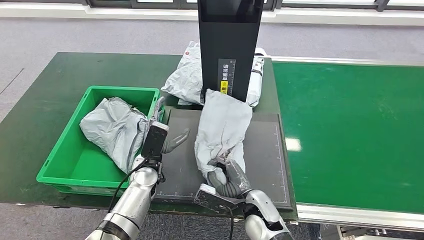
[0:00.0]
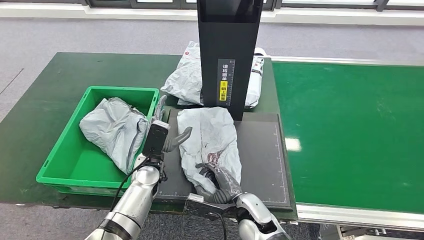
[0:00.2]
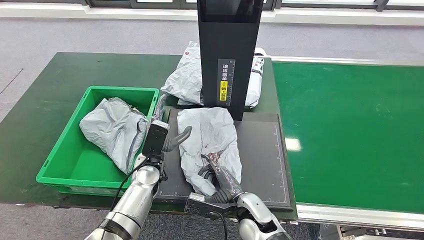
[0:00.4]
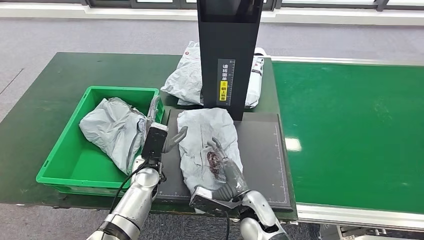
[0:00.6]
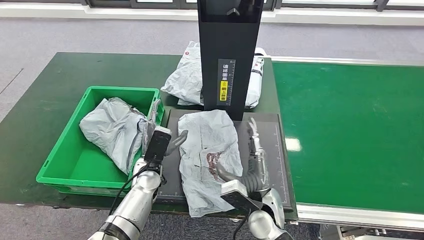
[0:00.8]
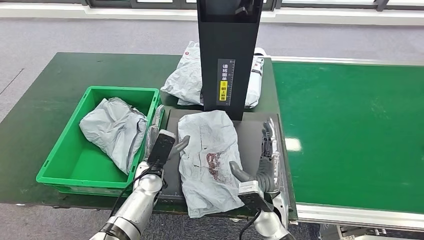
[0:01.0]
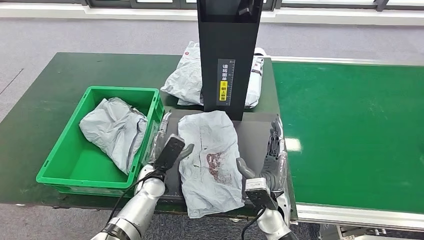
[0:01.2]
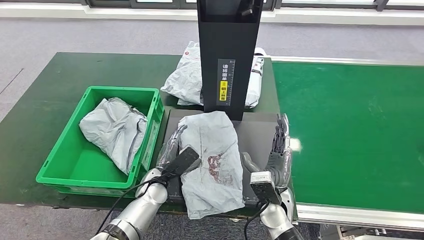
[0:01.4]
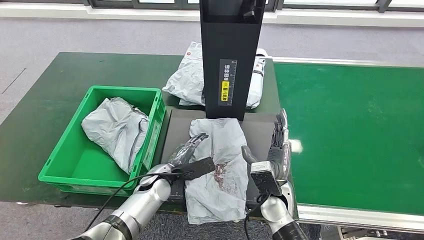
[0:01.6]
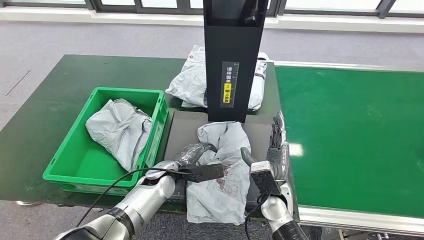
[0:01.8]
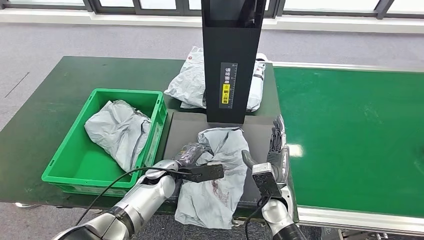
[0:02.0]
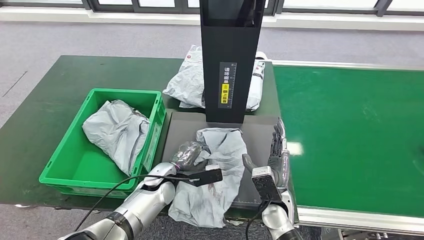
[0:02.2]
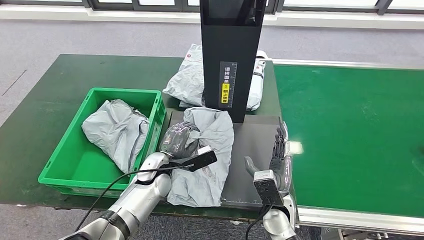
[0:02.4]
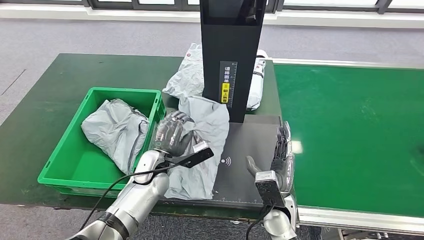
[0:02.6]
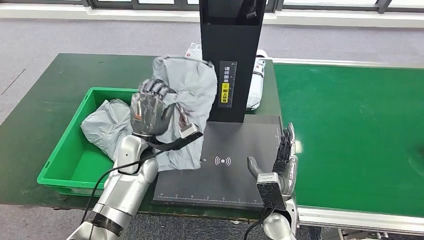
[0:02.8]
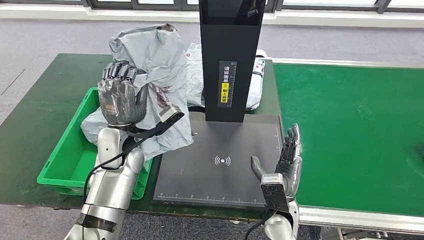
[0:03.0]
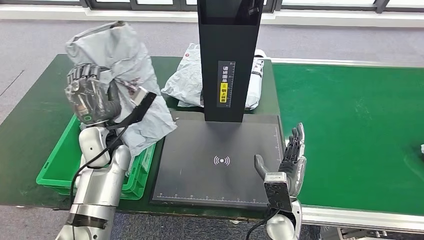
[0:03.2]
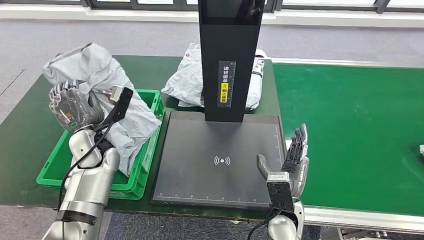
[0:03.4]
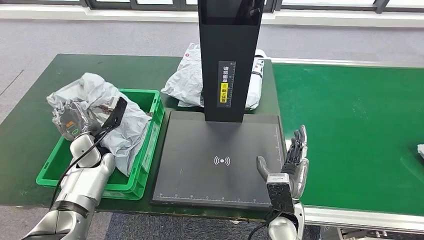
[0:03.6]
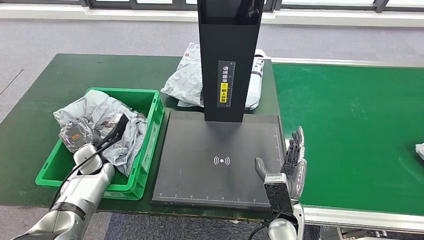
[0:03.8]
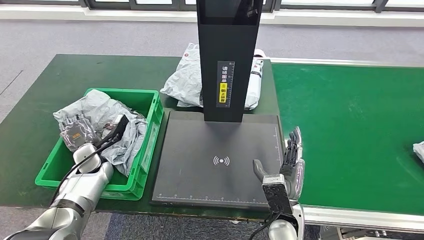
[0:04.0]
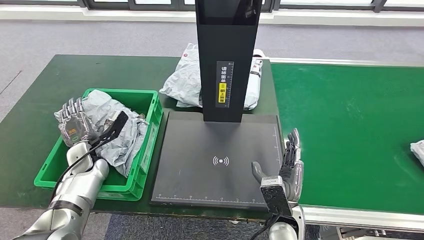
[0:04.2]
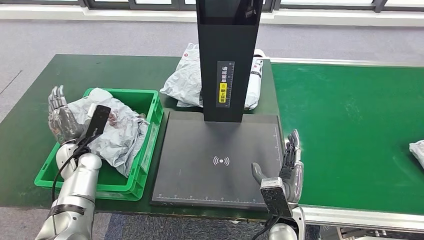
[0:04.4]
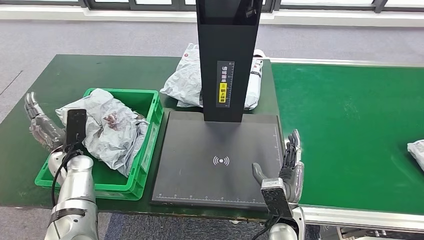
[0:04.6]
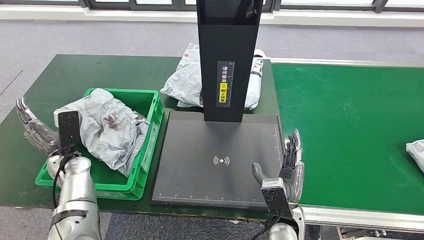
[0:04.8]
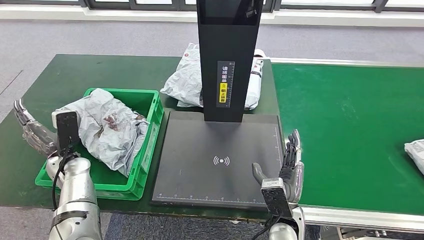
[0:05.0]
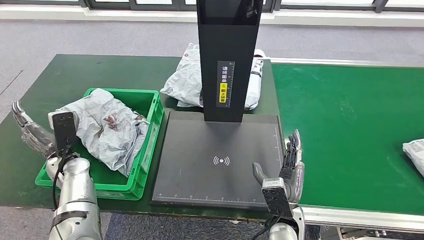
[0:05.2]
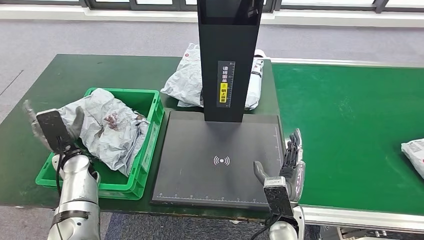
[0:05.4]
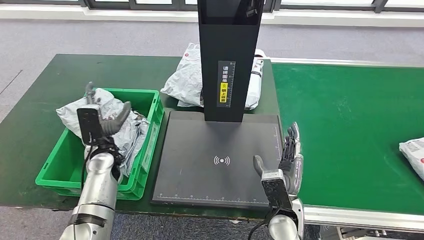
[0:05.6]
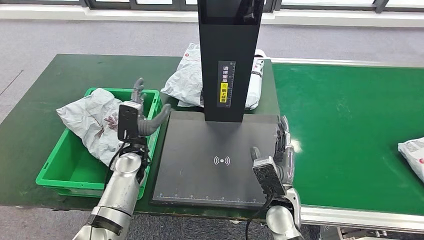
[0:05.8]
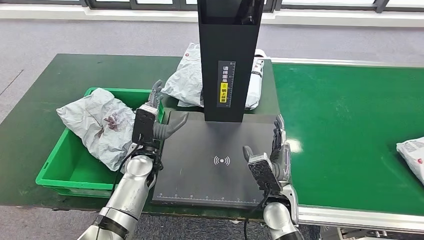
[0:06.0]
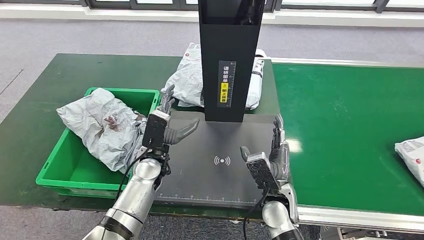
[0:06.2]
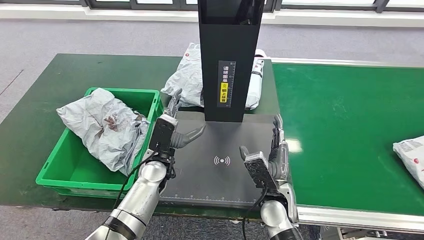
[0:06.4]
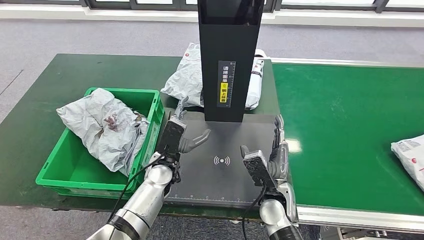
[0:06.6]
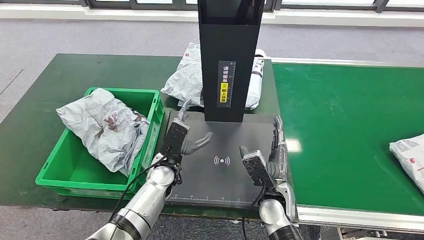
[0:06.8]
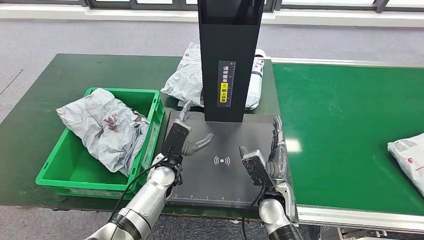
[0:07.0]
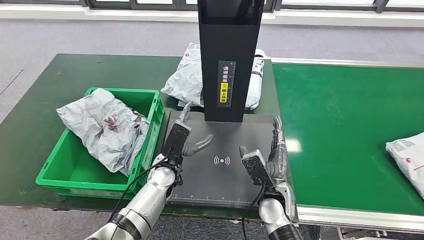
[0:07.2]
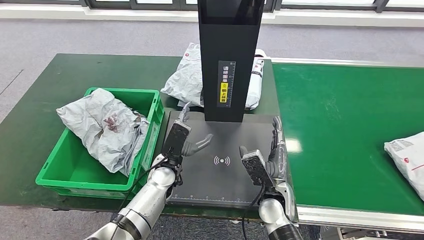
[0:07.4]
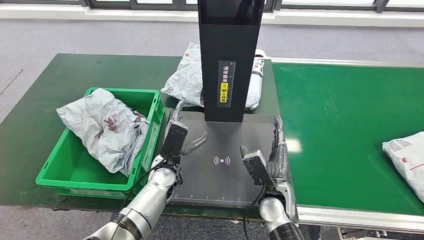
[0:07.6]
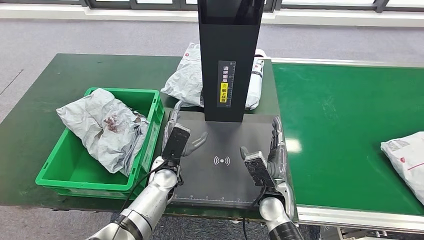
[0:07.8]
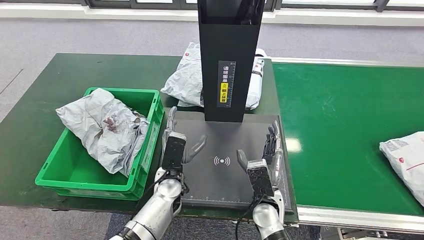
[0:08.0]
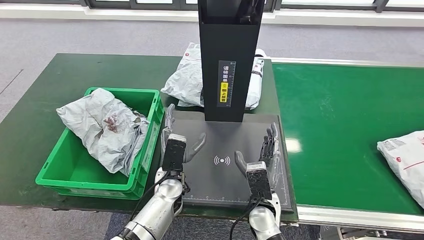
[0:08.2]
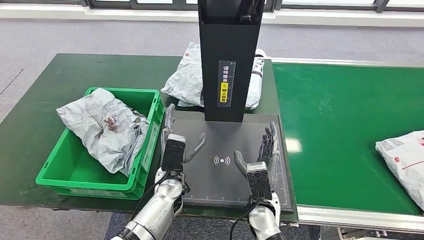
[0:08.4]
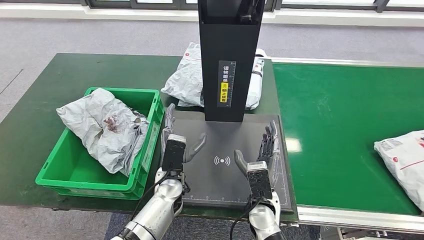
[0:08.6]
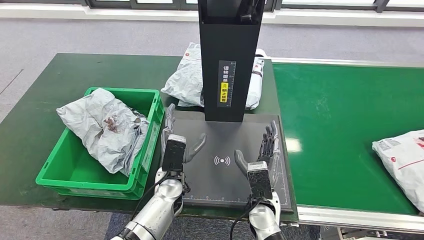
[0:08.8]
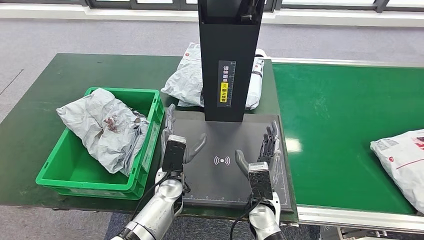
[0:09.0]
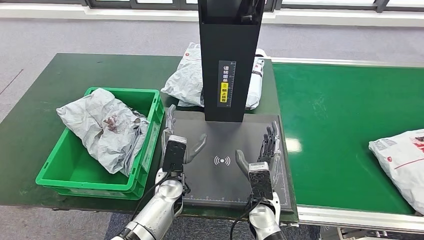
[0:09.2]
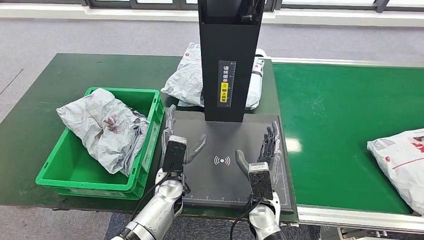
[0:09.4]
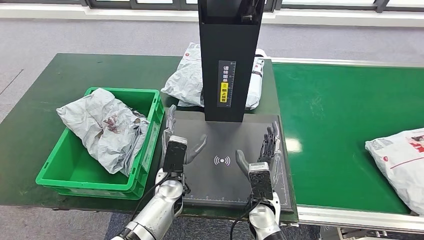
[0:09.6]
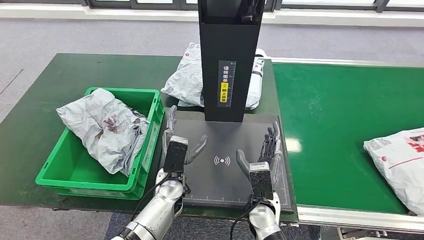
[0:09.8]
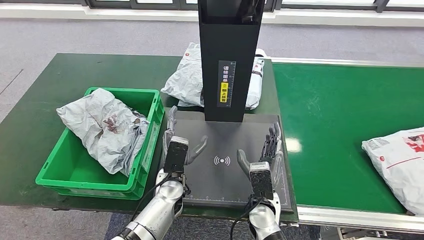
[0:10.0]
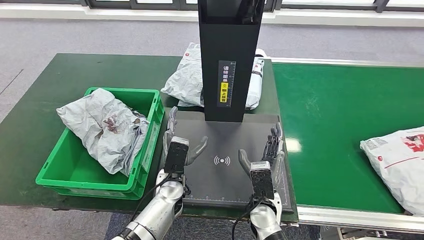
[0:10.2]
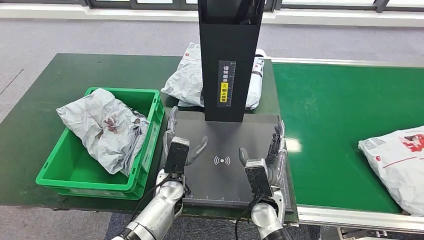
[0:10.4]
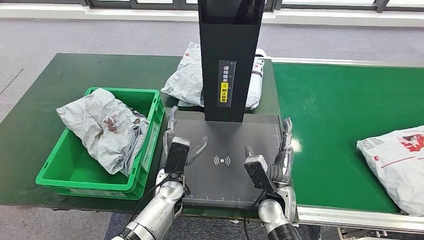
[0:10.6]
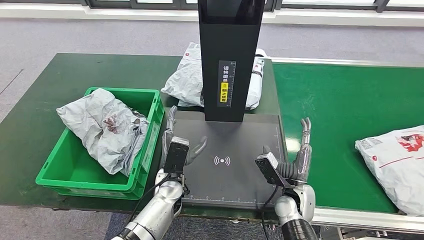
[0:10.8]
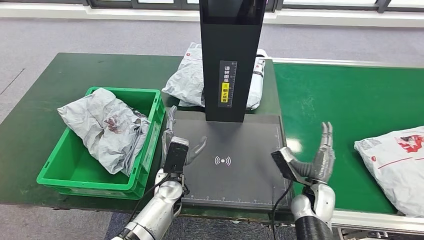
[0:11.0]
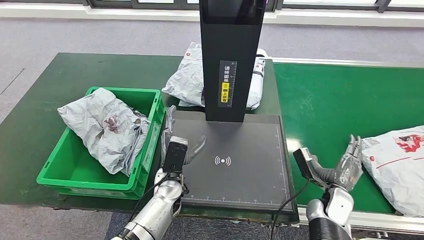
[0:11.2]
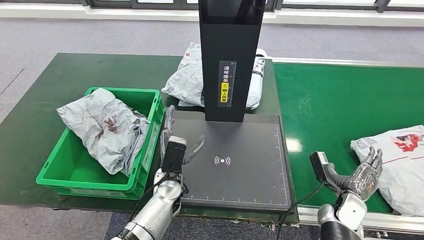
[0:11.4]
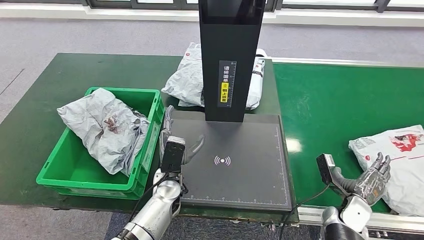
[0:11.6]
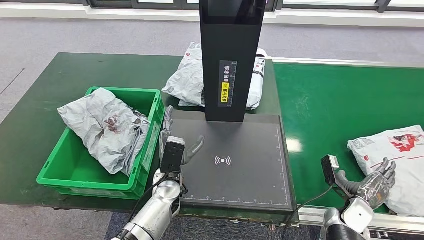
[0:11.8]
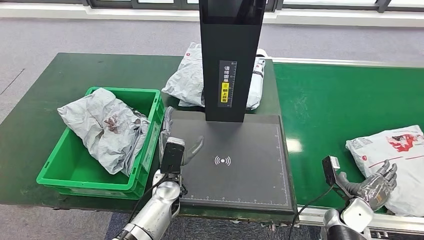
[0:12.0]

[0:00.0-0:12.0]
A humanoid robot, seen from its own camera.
Step, 0:00.0 to 0:01.4: Place the parcel onto the inbound machine.
Step, 0:01.8 to 0:03.2: Pick up the parcel from the inbound machine.
Step, 0:03.4 to 0:04.6: Place the parcel into the delivery box.
0:04.4 to 0:06.0: The left hand heads to the right, covering approximately 20 cm.
0:06.0 to 0:07.6: The left hand ends up about 5 cm from where it was.
0:07.6 to 0:10.4: There are only small adjustments of the hands.
0:10.4 to 0:12.0: The right hand is displaced to the right by approximately 25 cm.

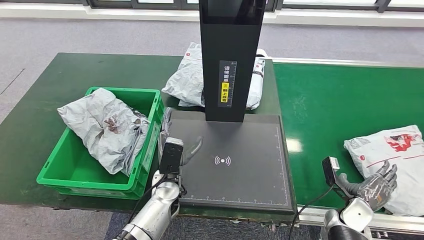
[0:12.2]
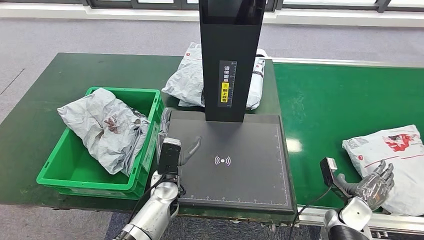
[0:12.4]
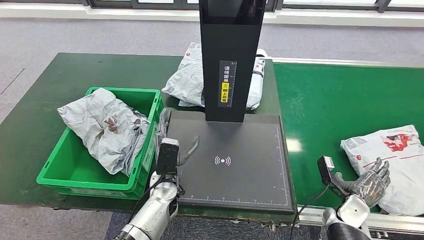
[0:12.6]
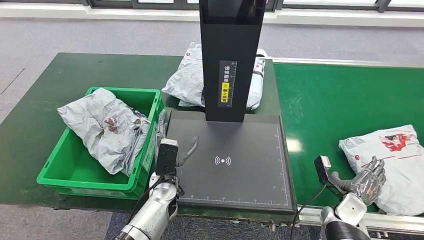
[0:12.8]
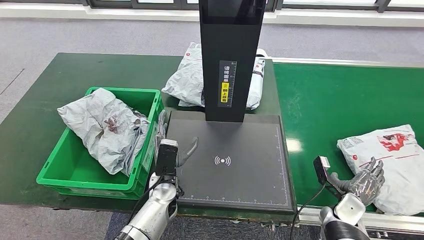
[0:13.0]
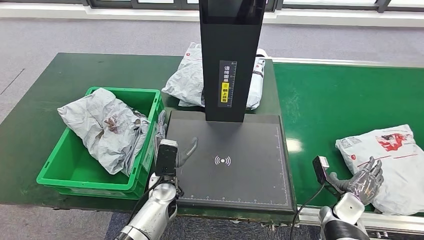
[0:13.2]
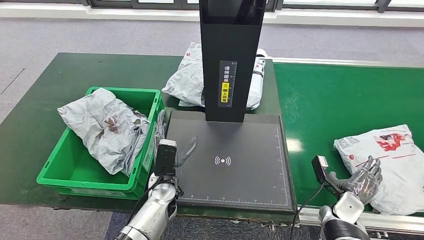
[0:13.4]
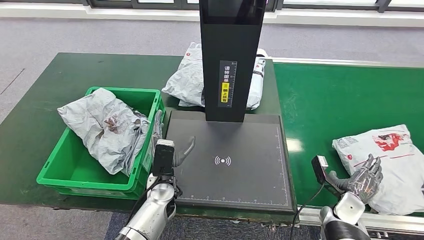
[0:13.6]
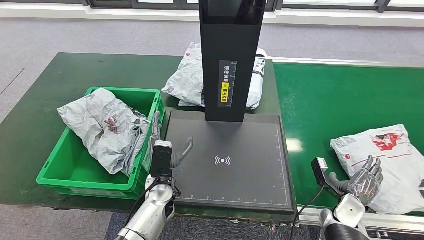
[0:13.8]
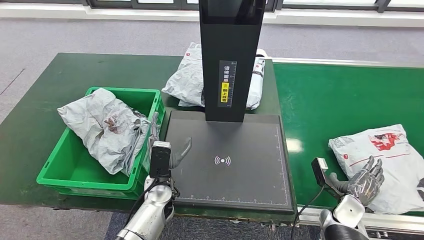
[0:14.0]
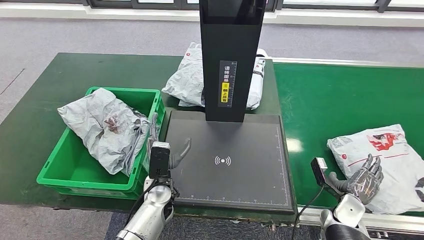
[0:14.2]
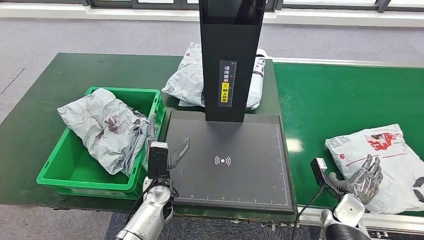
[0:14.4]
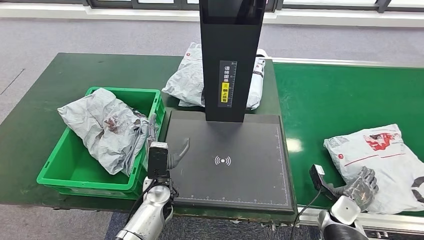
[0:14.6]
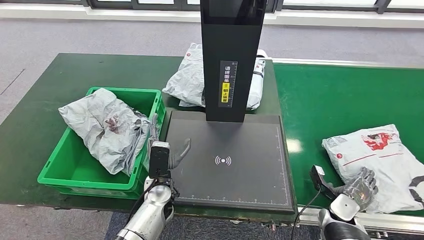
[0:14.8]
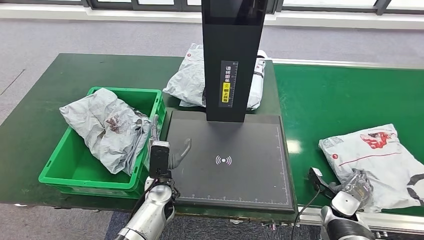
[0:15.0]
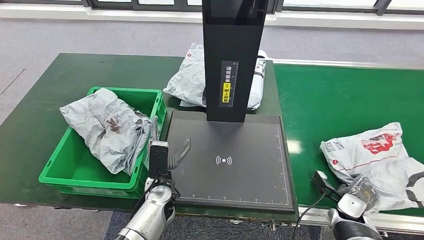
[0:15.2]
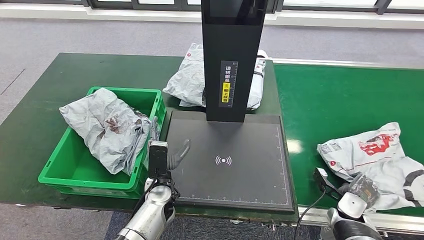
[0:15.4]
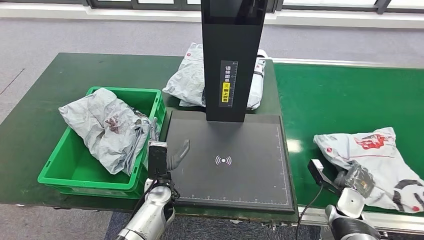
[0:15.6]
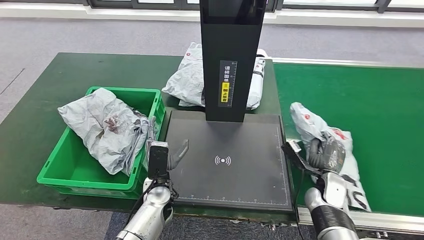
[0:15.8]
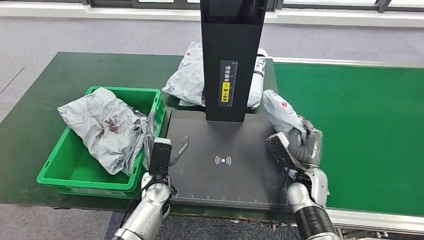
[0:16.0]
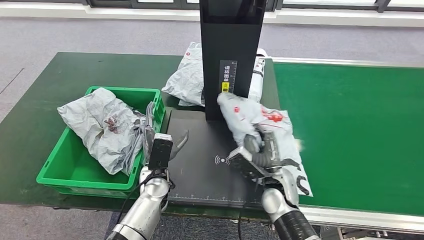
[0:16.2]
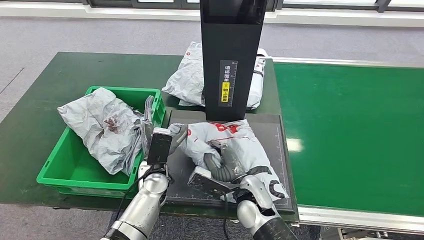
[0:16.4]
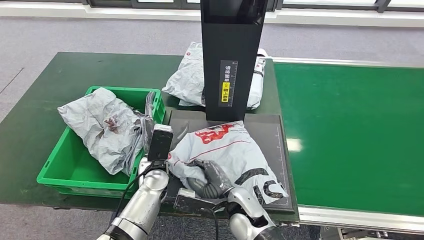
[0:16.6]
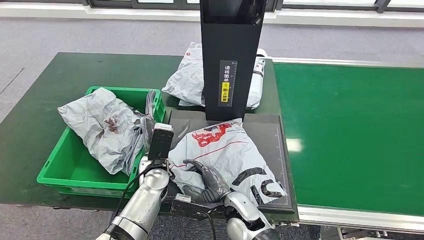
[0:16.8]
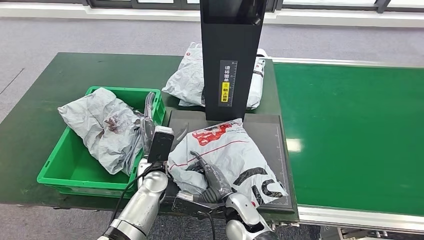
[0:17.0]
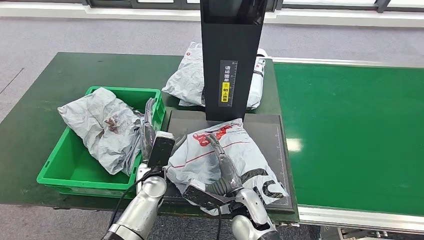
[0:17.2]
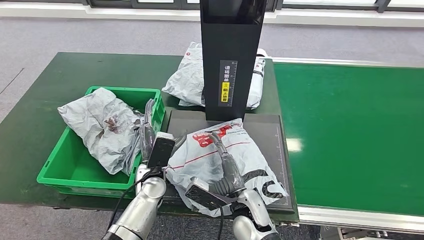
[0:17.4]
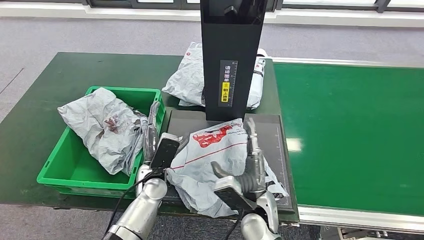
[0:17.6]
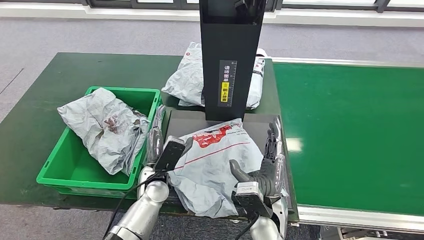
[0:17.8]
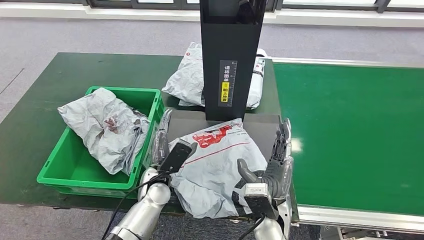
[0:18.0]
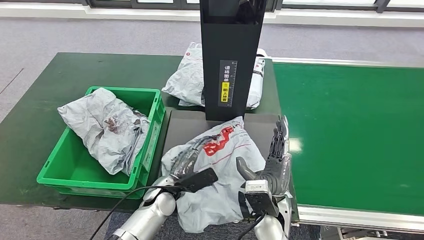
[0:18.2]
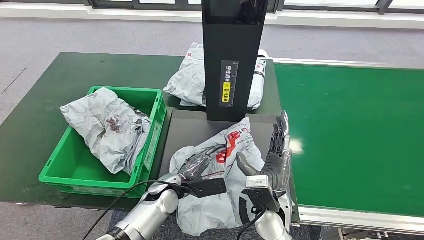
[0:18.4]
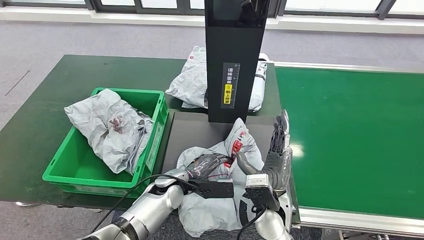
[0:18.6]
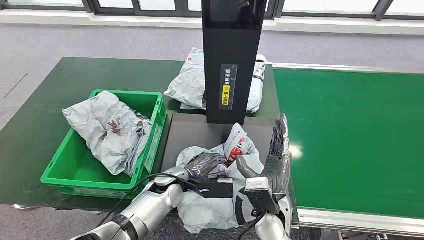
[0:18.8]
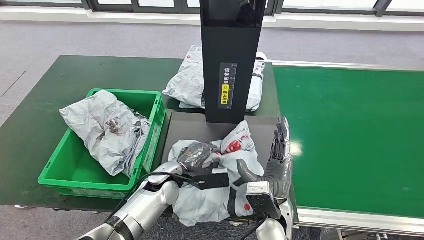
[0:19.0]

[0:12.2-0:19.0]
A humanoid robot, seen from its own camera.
Step, 0:12.2 to 0:16.2: Pick up the parcel from the conveyor belt.
Step, 0:16.4 to 0:17.4: Place the parcel onto the inbound machine.
0:12.2 to 0:13.6: The hands stay close to where they were, moving slightly.
0:16.2 to 0:17.6: The right hand travels to the left and backward by about 10 cm.
